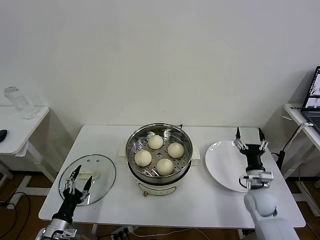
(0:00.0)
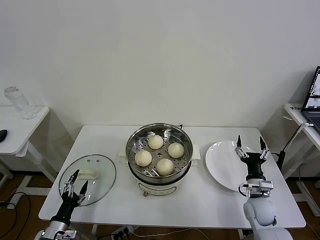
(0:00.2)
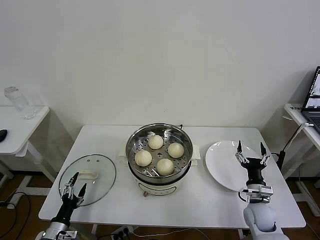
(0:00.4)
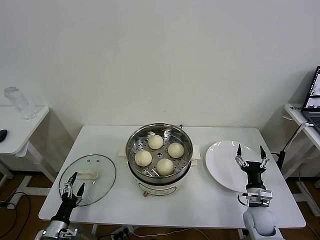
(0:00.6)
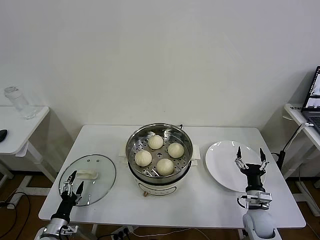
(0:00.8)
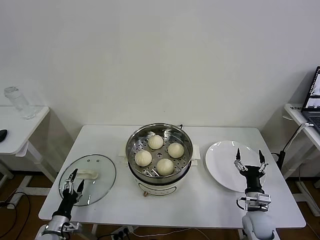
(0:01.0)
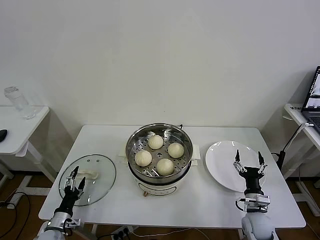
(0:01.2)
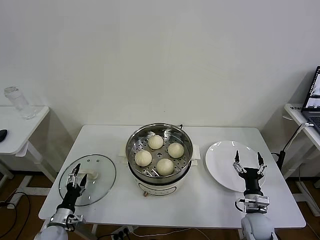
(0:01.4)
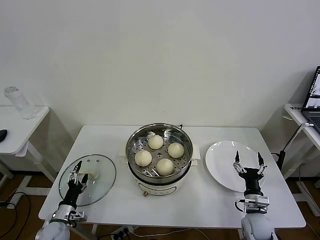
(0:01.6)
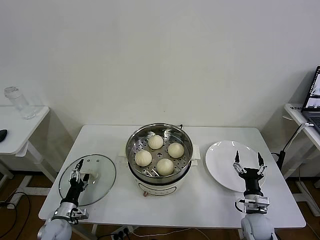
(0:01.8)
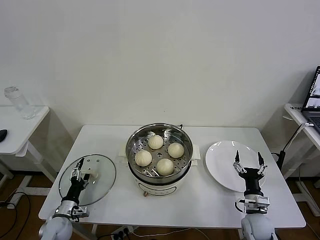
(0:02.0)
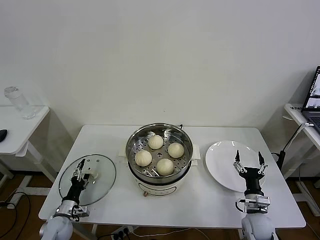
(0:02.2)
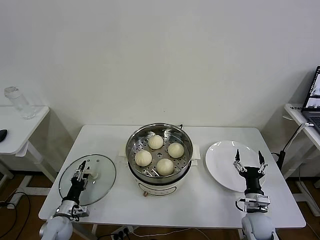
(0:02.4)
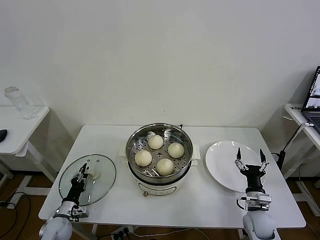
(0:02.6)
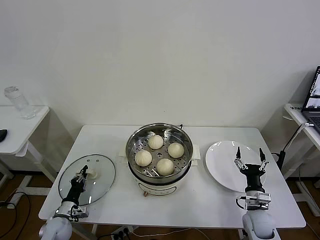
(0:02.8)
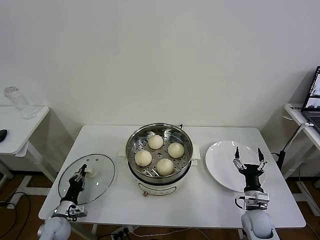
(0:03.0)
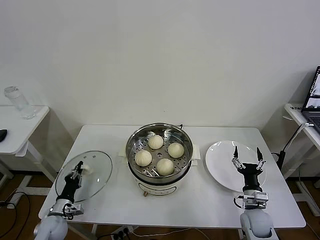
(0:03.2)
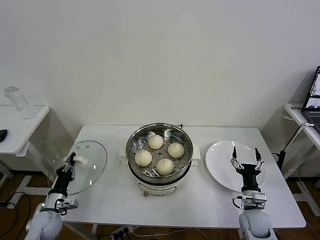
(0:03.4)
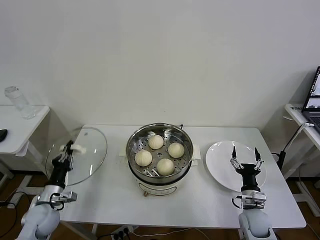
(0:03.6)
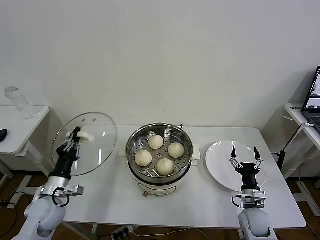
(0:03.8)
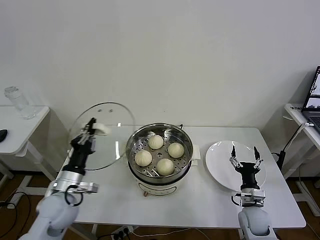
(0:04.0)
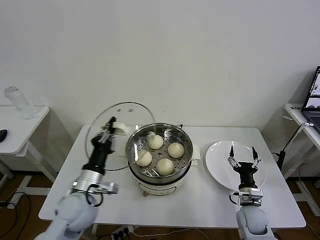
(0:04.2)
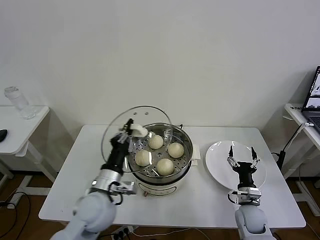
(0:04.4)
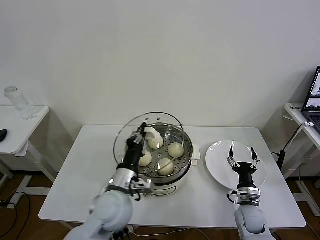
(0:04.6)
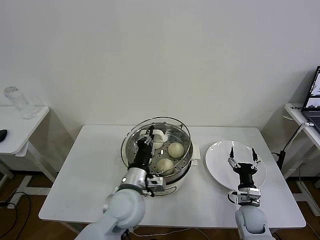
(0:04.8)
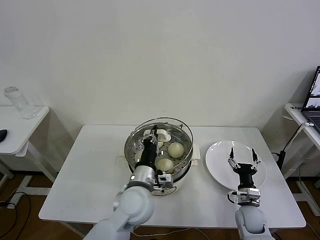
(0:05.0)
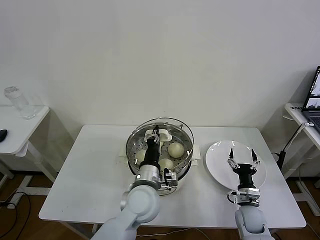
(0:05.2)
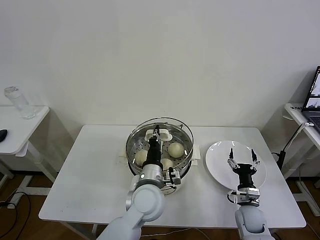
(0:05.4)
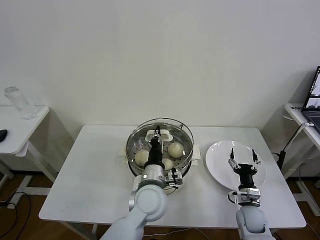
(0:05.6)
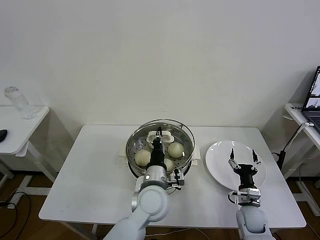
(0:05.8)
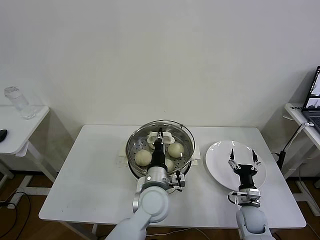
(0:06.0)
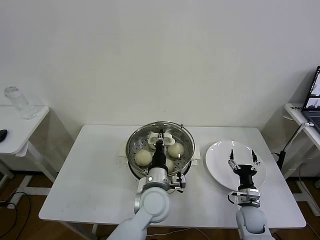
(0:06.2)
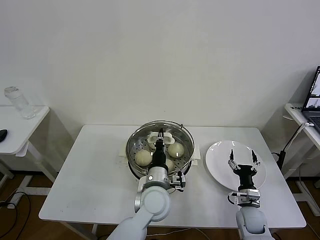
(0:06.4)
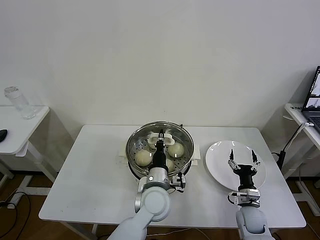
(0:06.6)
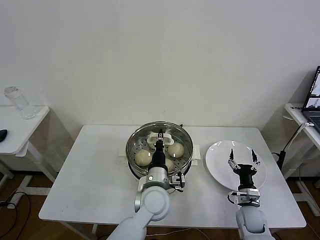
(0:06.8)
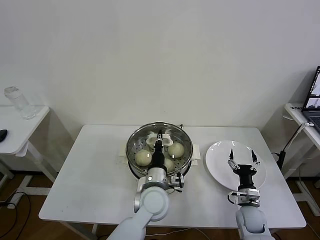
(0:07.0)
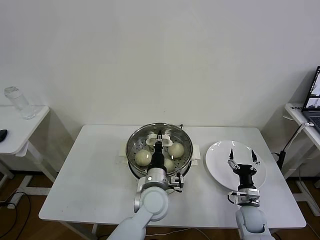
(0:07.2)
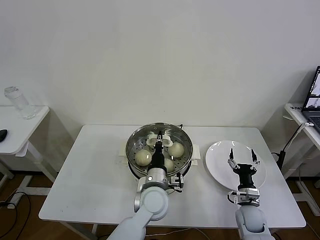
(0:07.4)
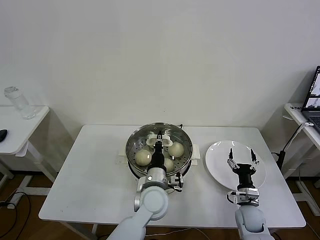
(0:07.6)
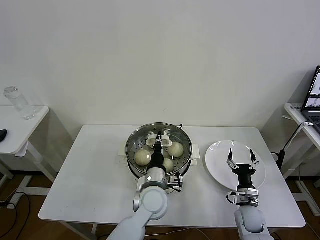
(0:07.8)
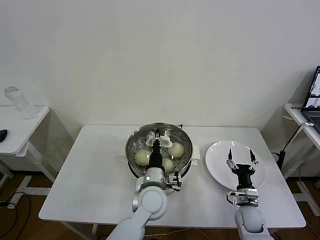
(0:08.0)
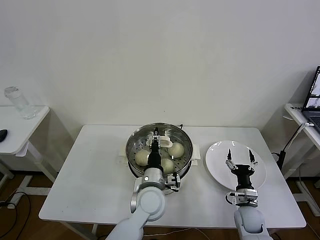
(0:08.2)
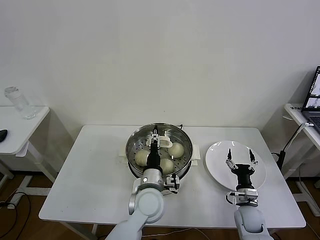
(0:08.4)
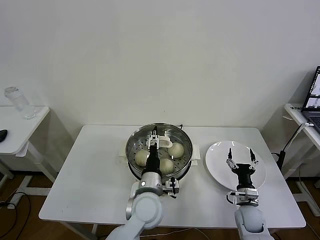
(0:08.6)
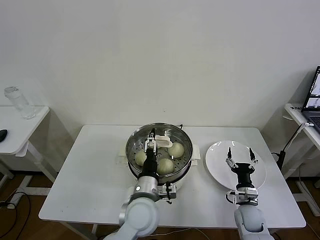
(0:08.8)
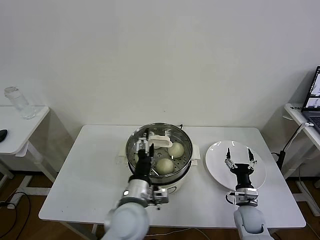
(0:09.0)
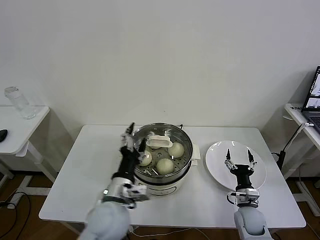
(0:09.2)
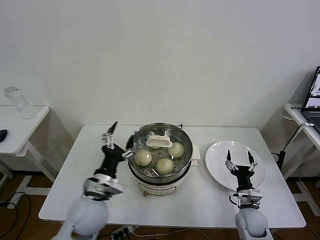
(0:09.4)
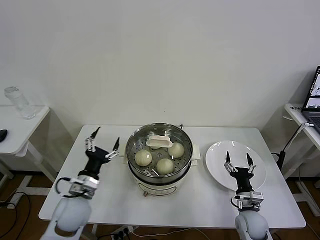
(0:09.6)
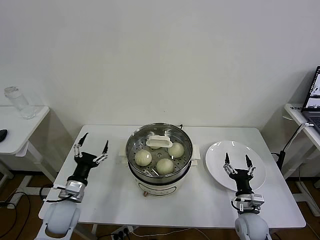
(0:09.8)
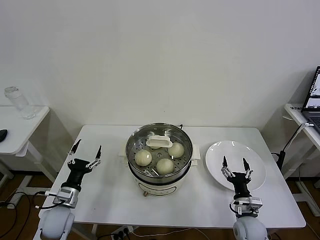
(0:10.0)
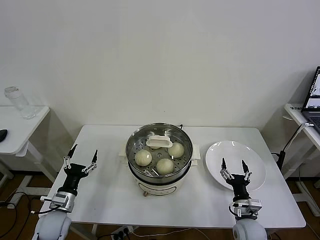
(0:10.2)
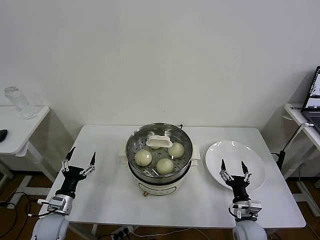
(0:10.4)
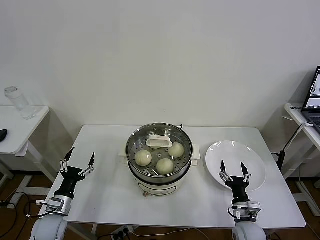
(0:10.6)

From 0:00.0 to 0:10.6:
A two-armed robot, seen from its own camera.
Task of the whole recording: take steamed baozi put them in steamer then cover it.
Step, from 0:00.0 to 0:03.0: Grasp the pot lid with left gripper.
Step, from 0:03.2 to 0:08.2: Place the pot lid on the steamer with left gripper.
From 0:00.0 to 0:01.6: The left gripper moves forward and downward, approximately 10 cm. The right gripper shifts roughly 10 cm backward and downward.
From 0:01.6 to 0:03.0: The left gripper closes its fingers.
From 0:03.0 to 0:04.6: The left gripper moves to the right and upward, roughly 35 cm.
From 0:04.6 to 0:06.0: The left gripper heads to the right, covering about 10 cm.
From 0:06.0 to 0:07.6: The grippers make only small movements.
From 0:07.6 to 0:09.0: The left gripper goes approximately 5 cm backward, and opens its fingers.
From 0:09.0 to 0:10.6: The left gripper moves to the left and downward, some 35 cm; the right gripper travels backward by about 5 cm.
